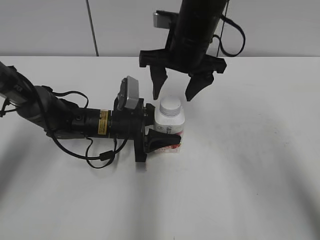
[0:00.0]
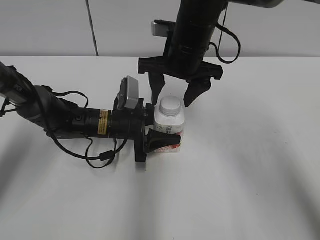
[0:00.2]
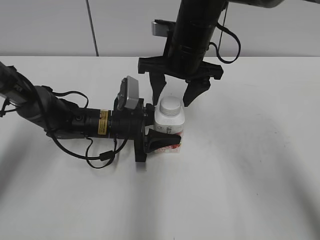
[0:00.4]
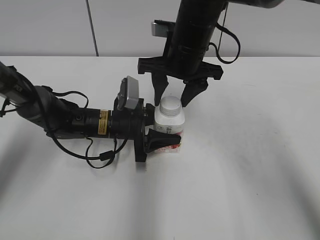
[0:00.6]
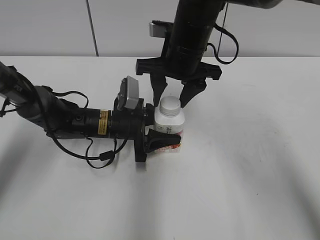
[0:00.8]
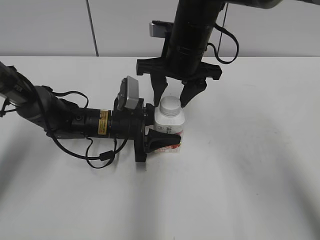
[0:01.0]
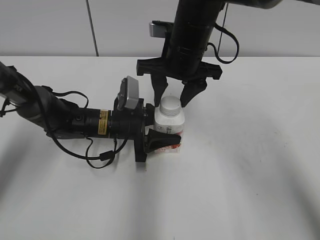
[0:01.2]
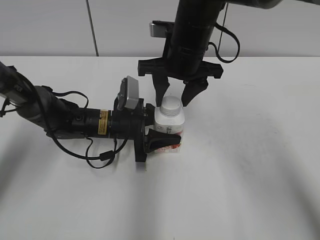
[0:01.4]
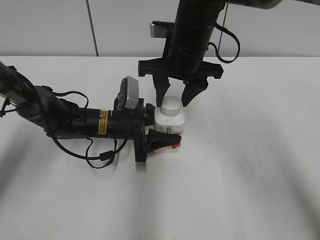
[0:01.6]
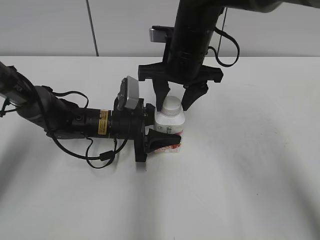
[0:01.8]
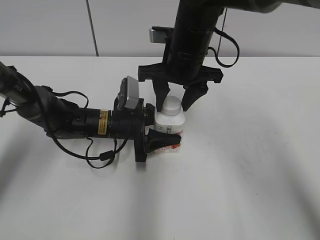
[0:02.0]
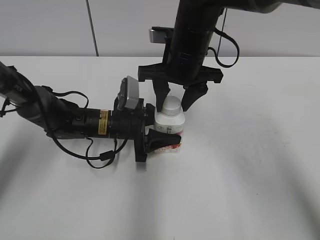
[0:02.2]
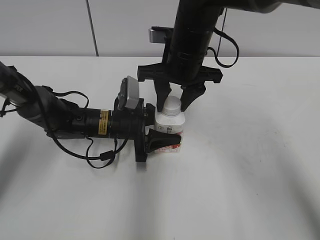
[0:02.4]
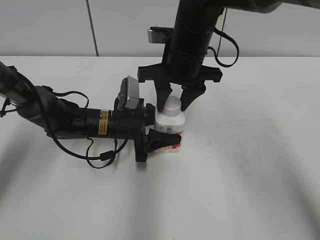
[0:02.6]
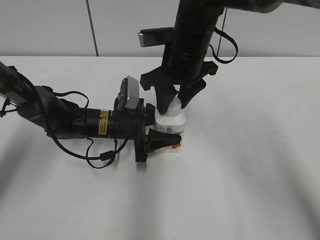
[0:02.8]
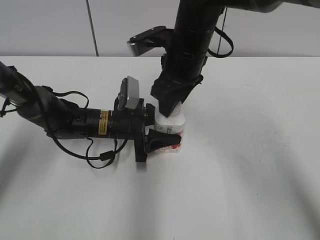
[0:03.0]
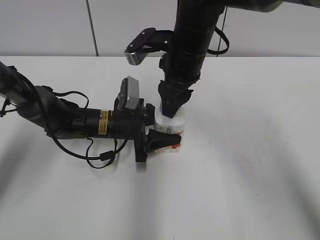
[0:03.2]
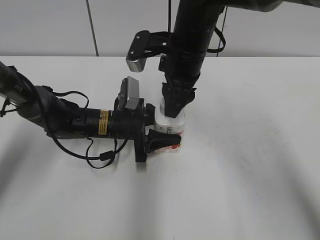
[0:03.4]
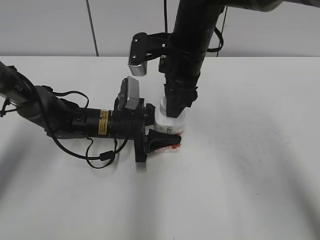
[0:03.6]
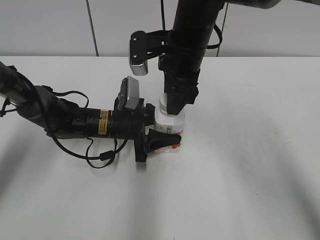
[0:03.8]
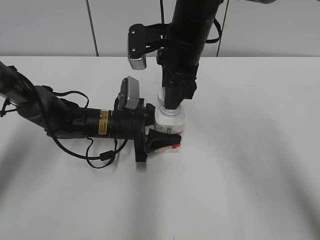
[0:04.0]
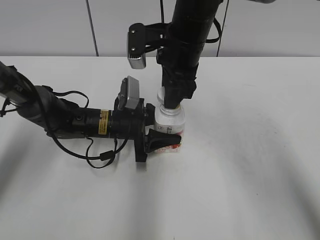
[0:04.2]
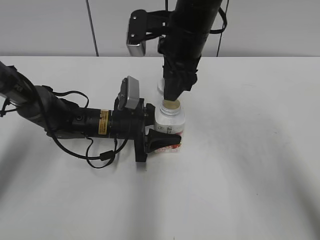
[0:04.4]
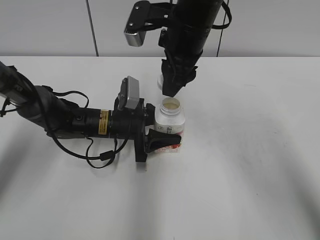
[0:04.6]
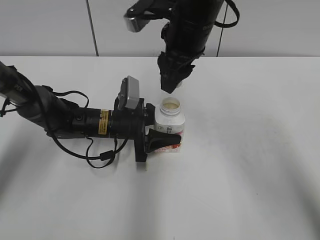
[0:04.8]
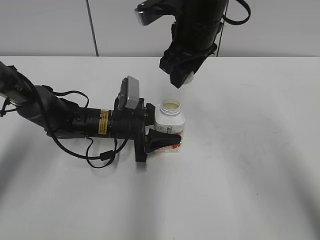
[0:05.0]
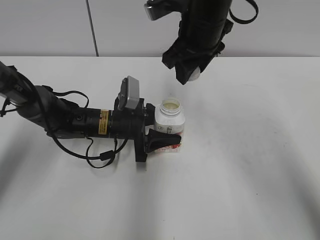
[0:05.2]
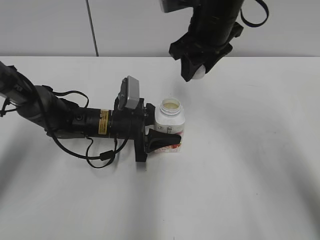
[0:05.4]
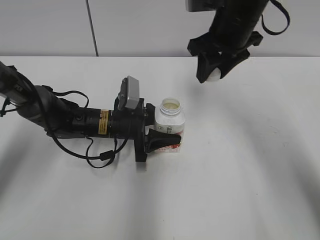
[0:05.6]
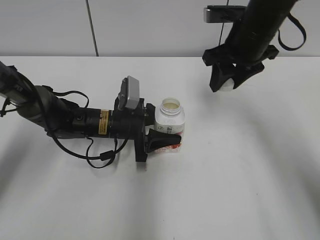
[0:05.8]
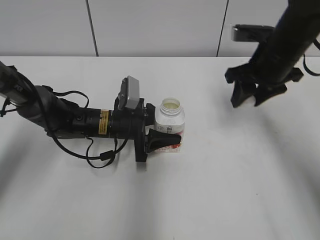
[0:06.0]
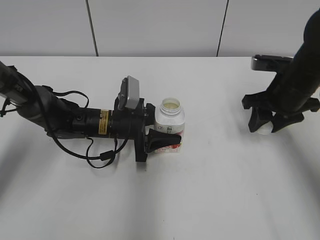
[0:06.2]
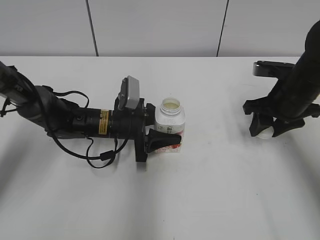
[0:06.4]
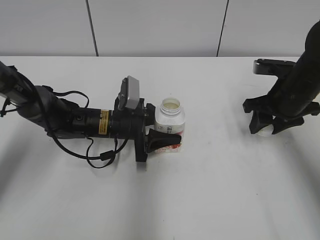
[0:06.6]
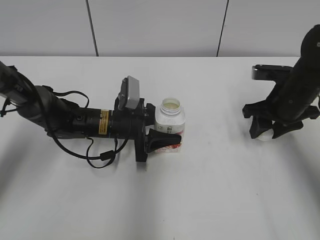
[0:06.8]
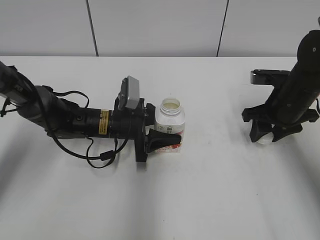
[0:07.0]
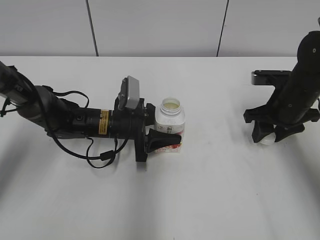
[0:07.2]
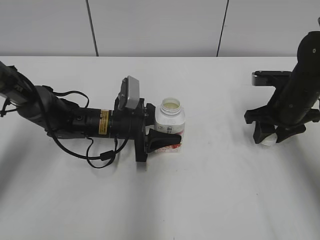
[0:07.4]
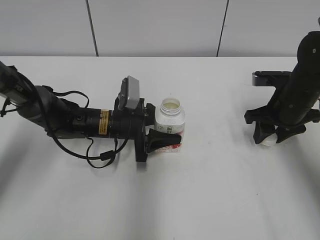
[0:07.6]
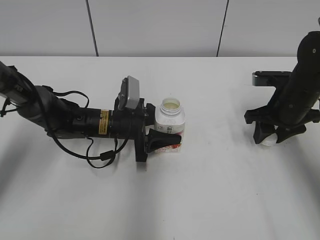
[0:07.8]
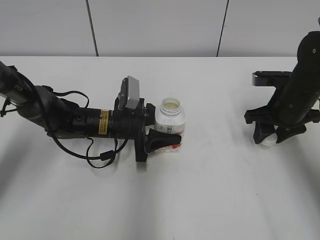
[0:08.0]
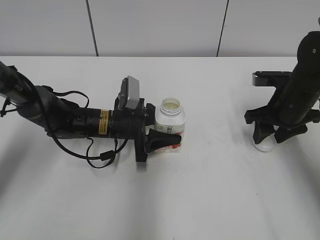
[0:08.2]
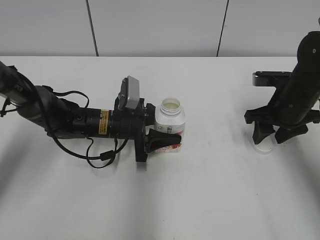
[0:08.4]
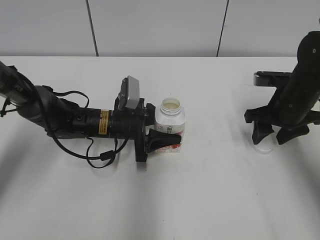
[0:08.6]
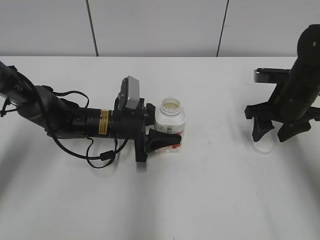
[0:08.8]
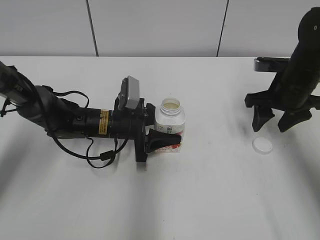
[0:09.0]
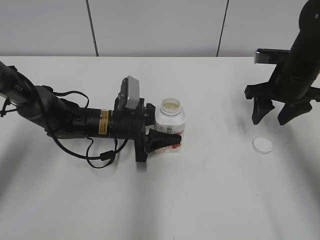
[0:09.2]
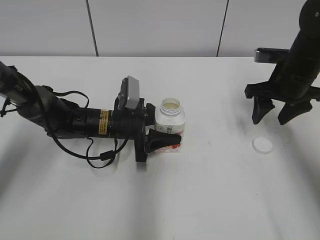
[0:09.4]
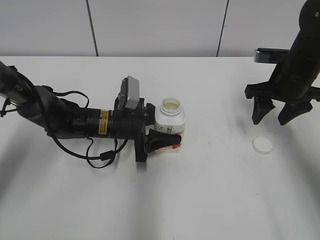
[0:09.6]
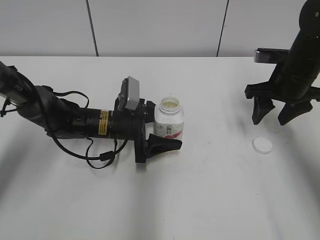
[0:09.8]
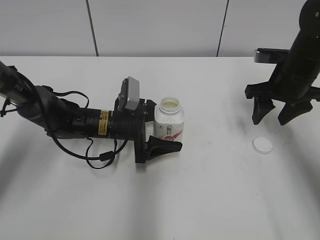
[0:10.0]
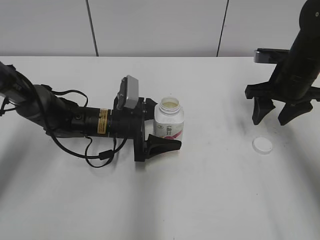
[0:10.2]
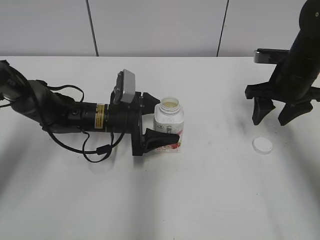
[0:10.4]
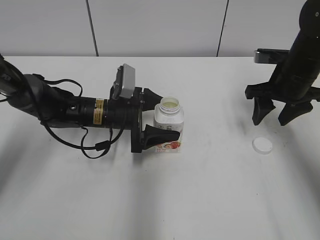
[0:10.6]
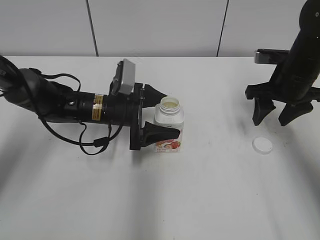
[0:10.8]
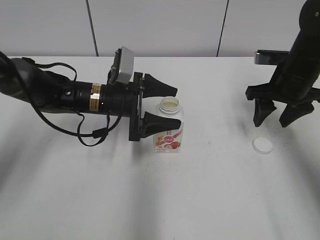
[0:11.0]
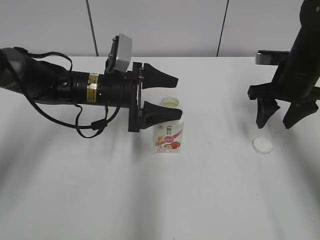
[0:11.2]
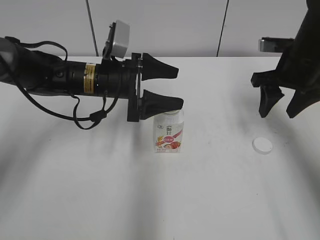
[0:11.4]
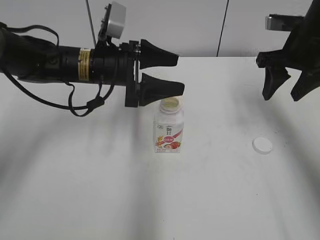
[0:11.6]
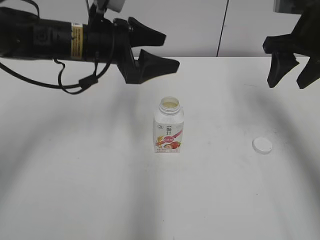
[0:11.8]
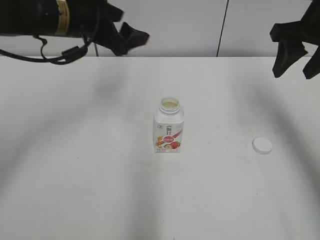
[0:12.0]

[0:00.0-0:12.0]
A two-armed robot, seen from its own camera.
Step, 0:04.0 to 0:08.4: Place the bottle cap on the right.
Step, 0:08.6 to 0:10.6: Place the Yili Changqing with the left hand.
0:00.0 to 0:01.6: The right gripper closes up.
0:04.4 to 0:06.0: The right gripper travels to the right by roughly 15 cm.
0:06.0 to 0:07.6: The right gripper goes about 10 cm downward.
0:07.6 to 0:09.0: The right gripper opens its fingers.
0:09.0 to 0:10.4: The left gripper opens up.
0:10.4 to 0:12.0: The left gripper travels upward by approximately 20 cm. Meanwhile the right gripper travels upward by approximately 10 cm.

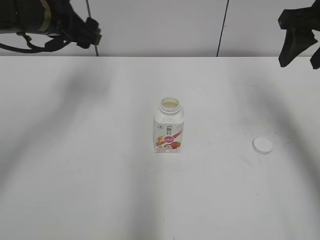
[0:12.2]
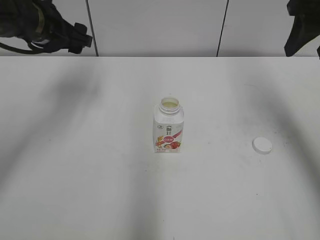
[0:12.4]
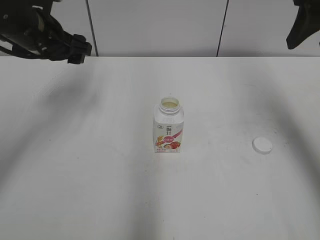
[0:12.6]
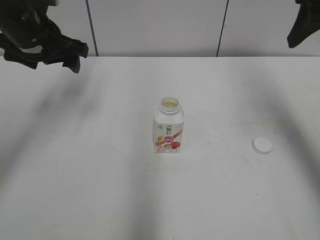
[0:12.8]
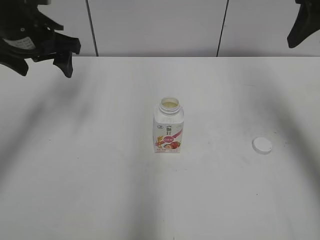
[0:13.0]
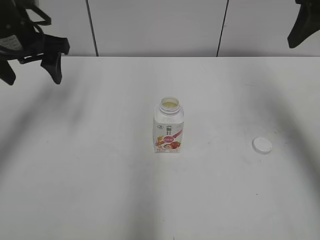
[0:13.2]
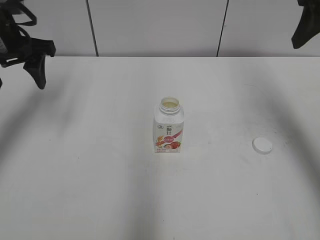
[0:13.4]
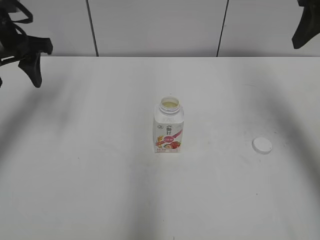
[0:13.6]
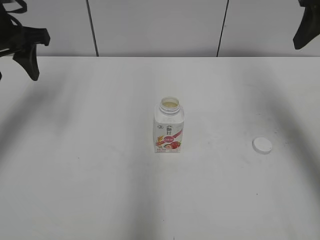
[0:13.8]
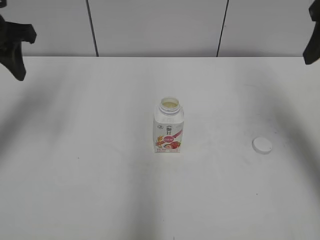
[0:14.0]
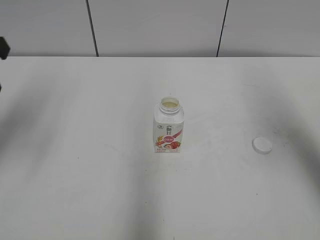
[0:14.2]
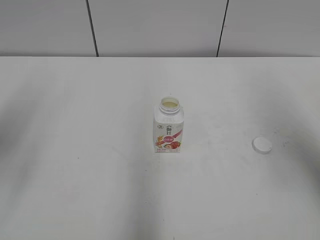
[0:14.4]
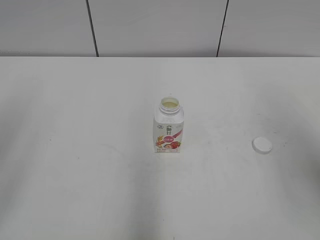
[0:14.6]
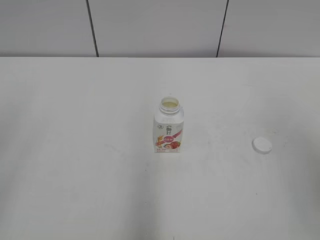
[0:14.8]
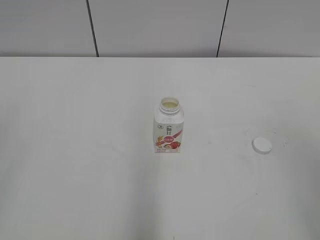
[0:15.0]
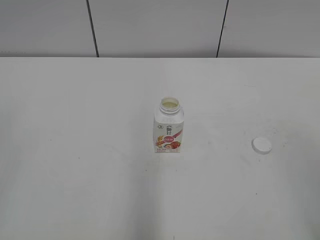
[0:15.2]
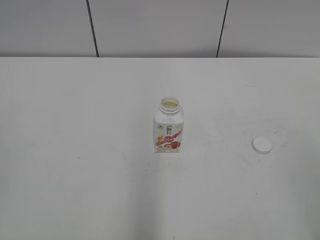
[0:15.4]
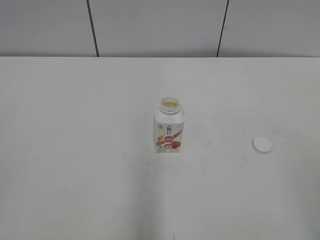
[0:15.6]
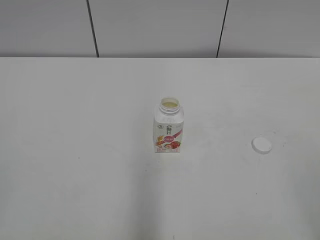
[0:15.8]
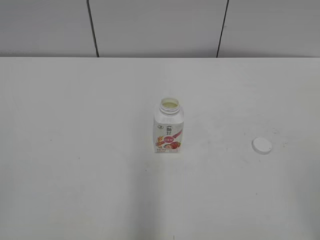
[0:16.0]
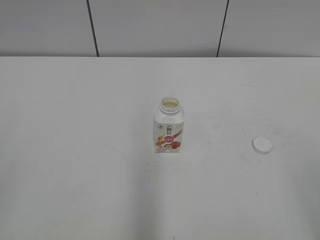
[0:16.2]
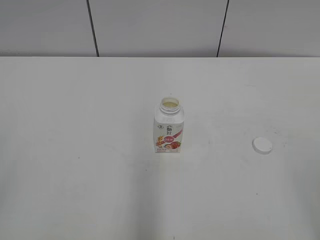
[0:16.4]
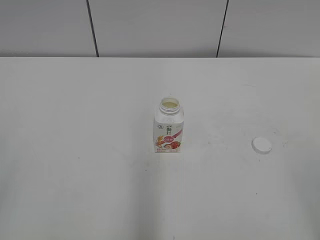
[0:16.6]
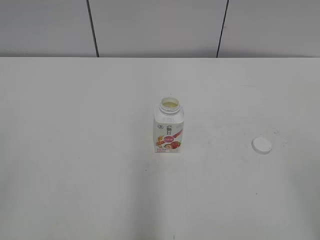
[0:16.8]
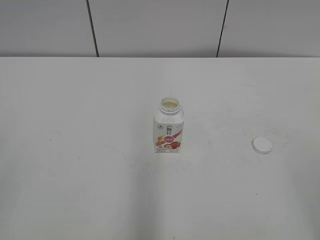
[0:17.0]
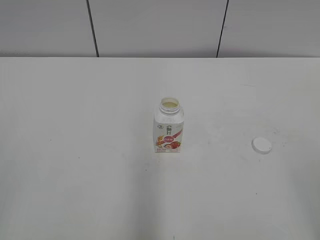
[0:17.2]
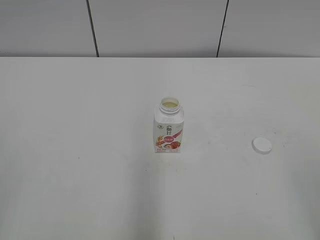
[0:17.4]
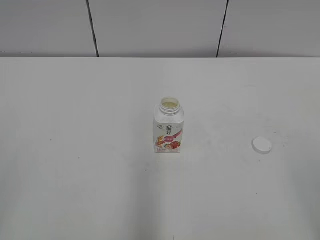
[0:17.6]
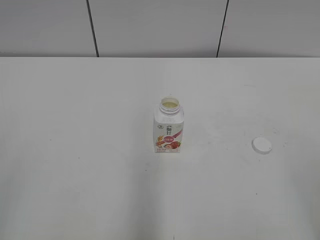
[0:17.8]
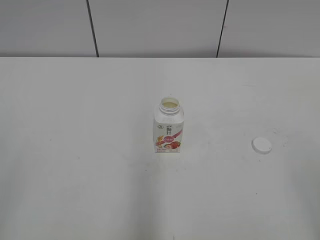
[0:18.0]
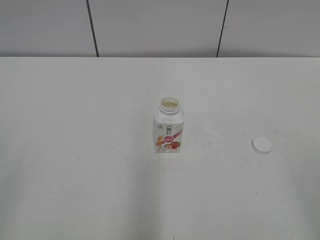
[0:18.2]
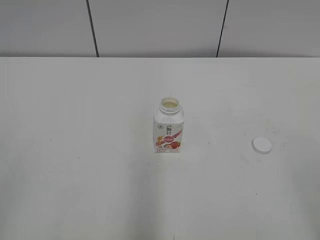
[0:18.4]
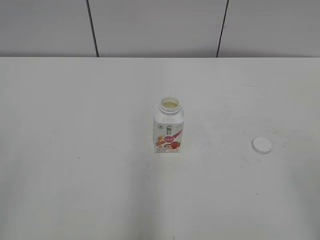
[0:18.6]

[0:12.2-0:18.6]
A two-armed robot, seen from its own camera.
0:12.2 to 0:13.8: The left gripper goes some 5 cm to the left, and closes up.
0:13.8 to 0:15.4: Both grippers move backward, about 35 cm.

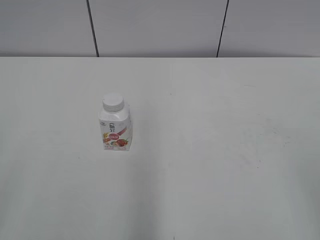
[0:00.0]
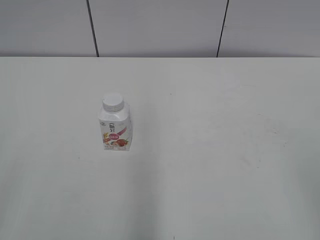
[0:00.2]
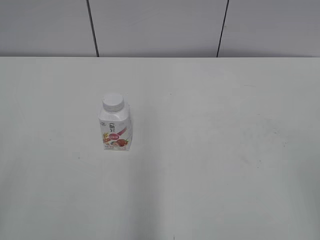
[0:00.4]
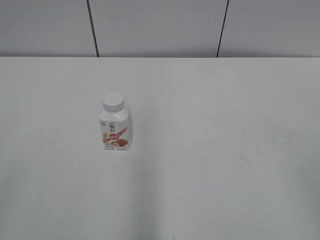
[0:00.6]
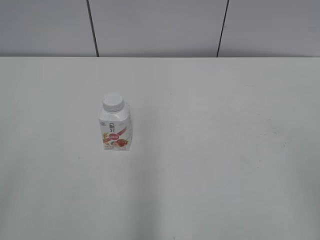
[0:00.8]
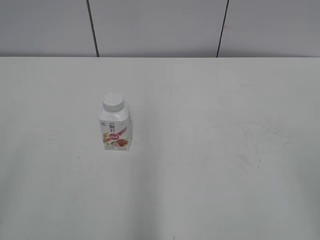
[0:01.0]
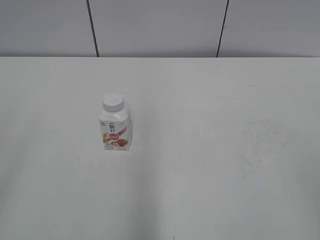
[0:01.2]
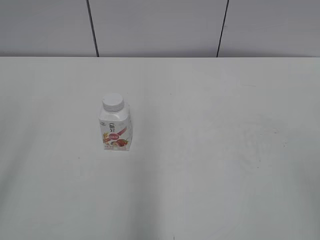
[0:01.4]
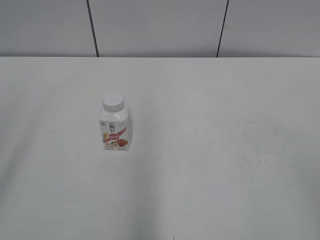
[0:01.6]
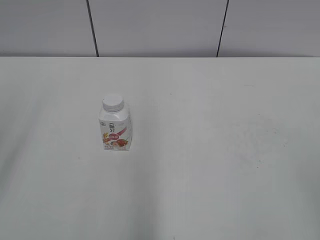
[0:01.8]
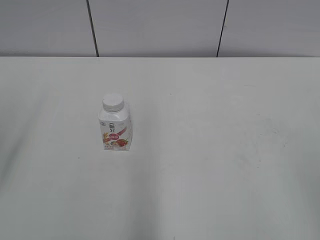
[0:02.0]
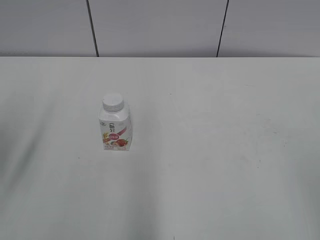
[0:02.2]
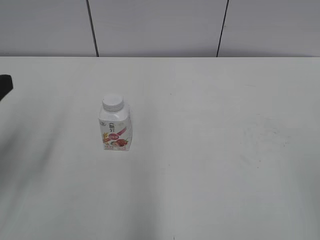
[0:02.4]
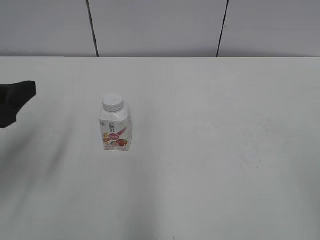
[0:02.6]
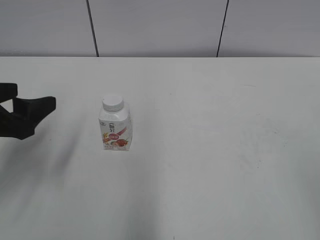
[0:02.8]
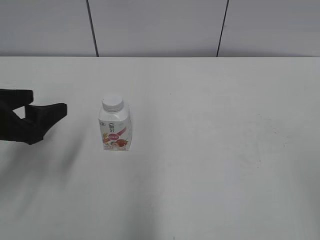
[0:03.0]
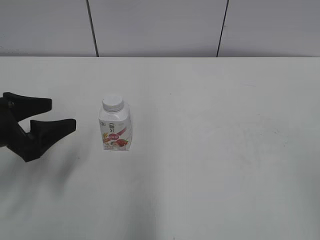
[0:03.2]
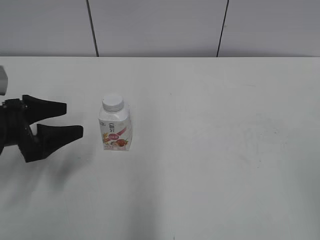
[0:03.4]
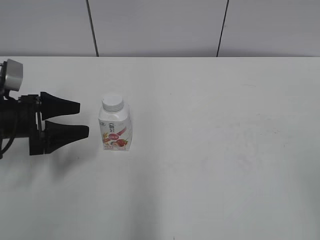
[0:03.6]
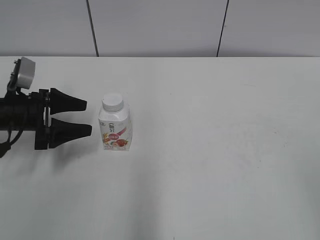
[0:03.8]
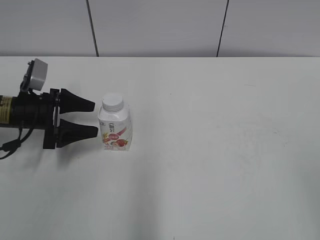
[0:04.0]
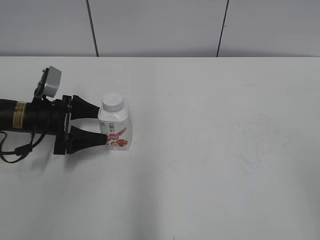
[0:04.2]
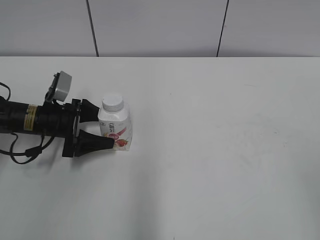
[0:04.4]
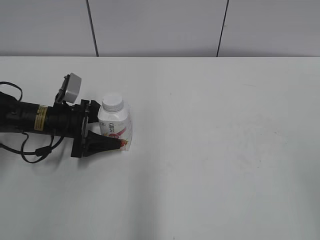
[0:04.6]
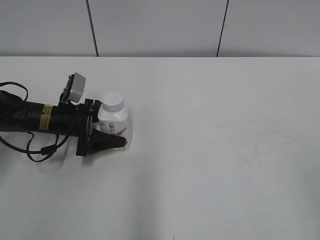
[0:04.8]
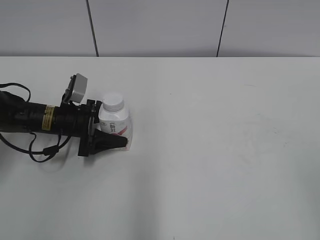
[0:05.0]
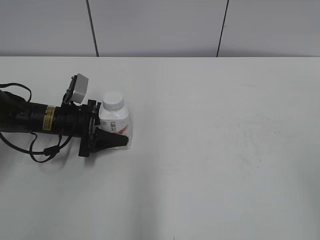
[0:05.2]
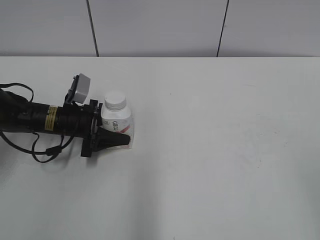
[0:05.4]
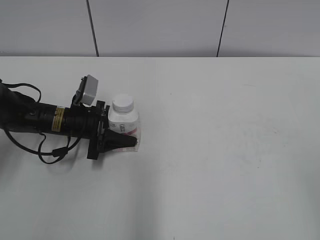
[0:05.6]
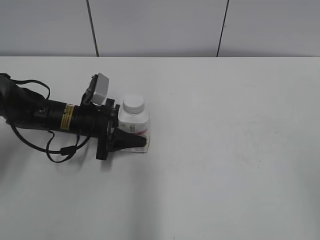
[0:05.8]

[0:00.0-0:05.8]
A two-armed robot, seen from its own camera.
Step, 0:00.0 to 0:05.0: Grab the Yili Changqing with the left hand.
0:01.4 to 0:02.8: The left gripper is displaced forward and downward by roughly 20 cm.
0:02.8 to 0:04.4: The left gripper goes approximately 20 cm forward and downward.
0:04.4 to 0:05.8: The left gripper moves to the right, approximately 5 cm, and closes.
